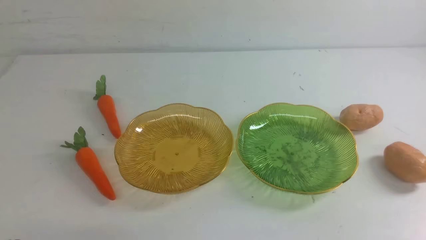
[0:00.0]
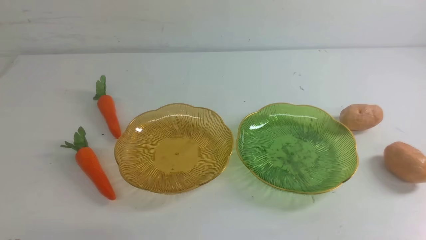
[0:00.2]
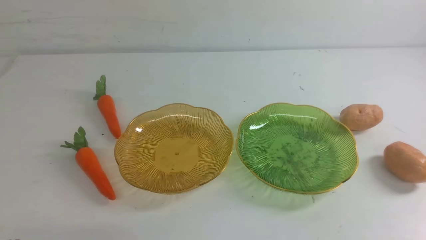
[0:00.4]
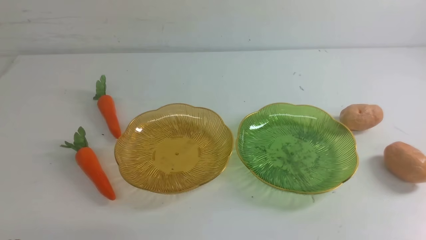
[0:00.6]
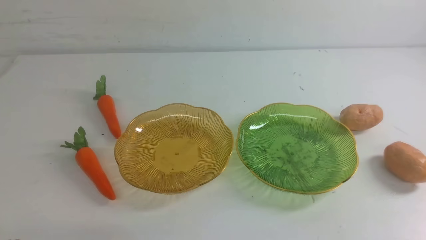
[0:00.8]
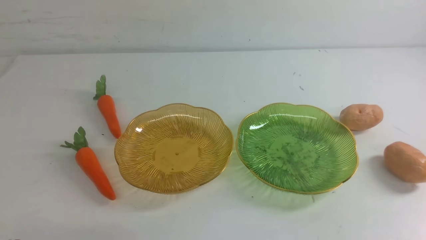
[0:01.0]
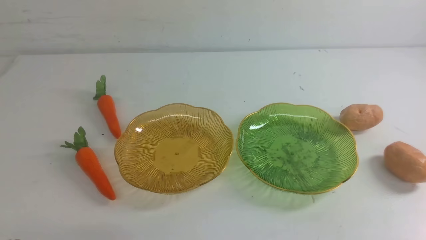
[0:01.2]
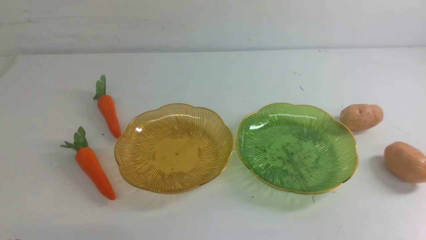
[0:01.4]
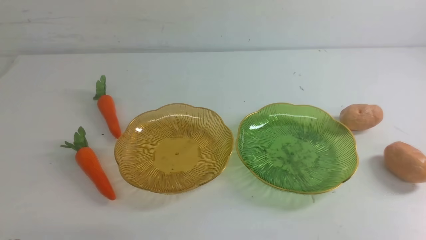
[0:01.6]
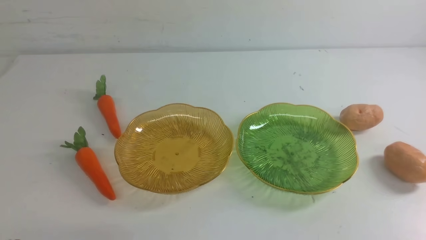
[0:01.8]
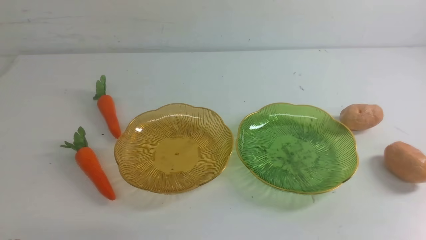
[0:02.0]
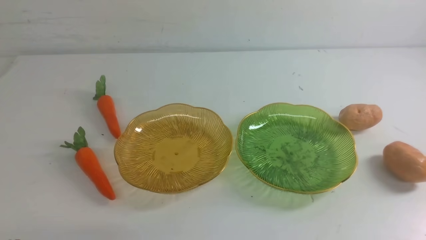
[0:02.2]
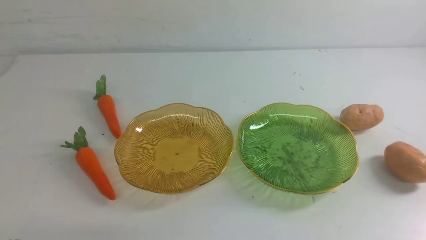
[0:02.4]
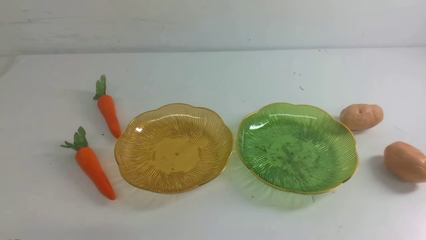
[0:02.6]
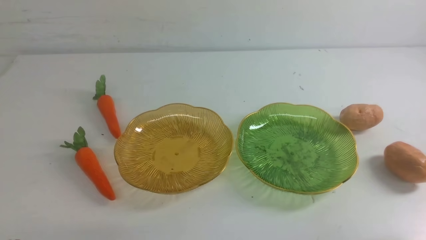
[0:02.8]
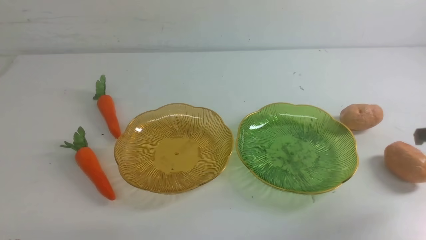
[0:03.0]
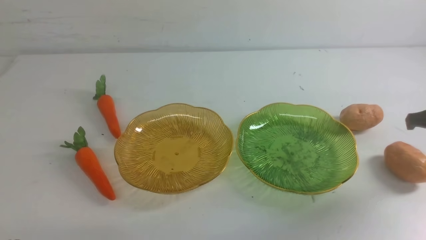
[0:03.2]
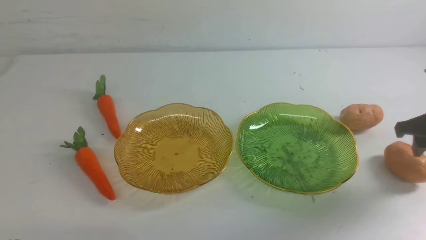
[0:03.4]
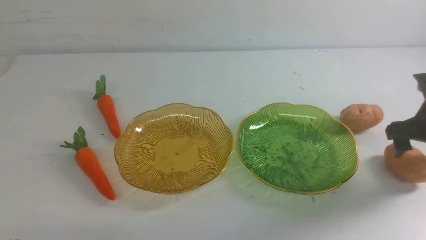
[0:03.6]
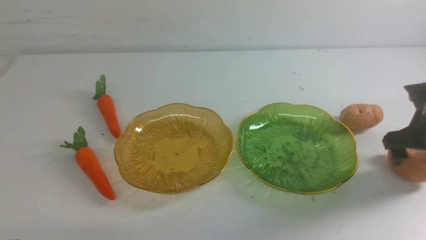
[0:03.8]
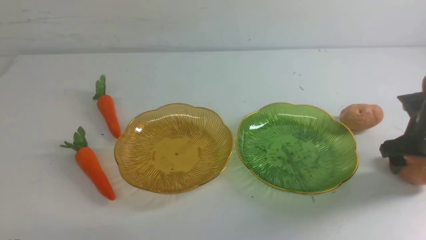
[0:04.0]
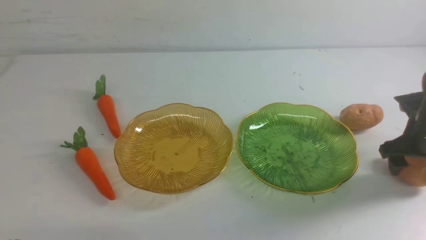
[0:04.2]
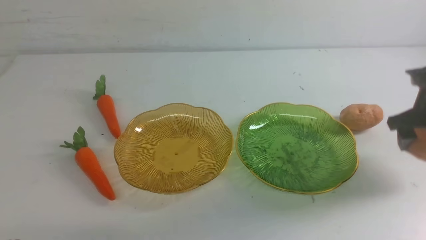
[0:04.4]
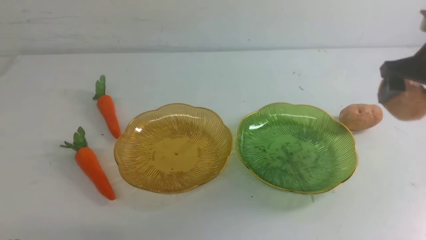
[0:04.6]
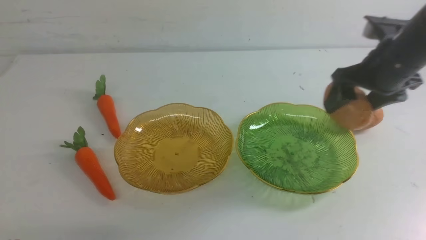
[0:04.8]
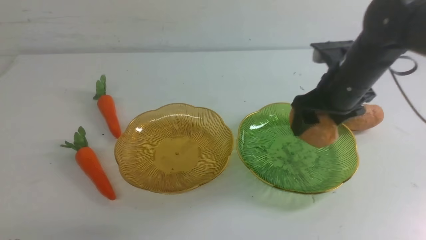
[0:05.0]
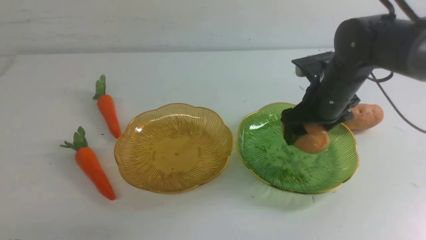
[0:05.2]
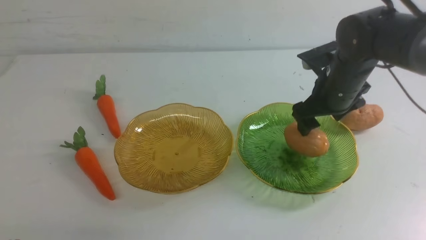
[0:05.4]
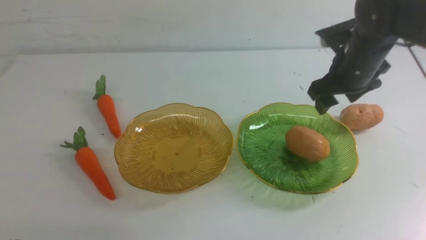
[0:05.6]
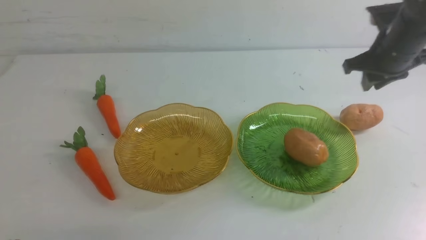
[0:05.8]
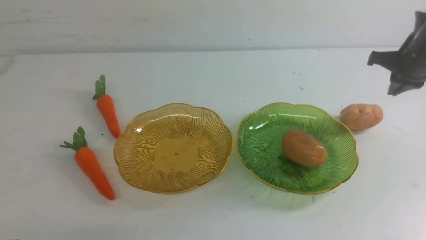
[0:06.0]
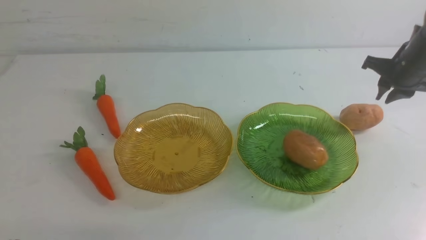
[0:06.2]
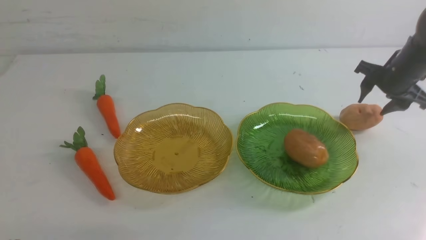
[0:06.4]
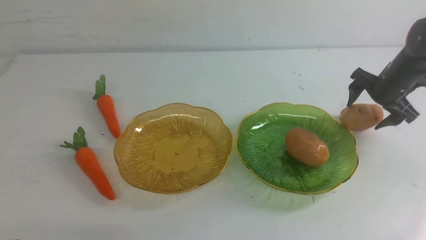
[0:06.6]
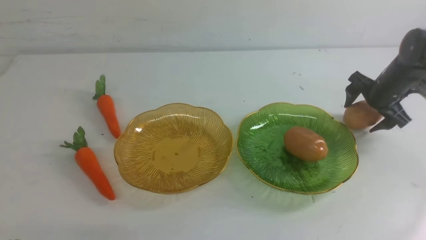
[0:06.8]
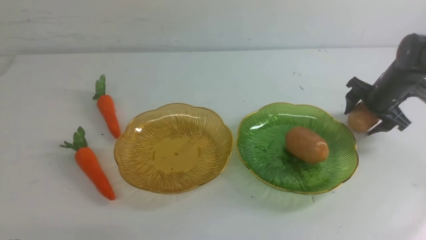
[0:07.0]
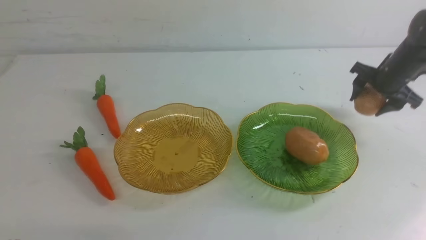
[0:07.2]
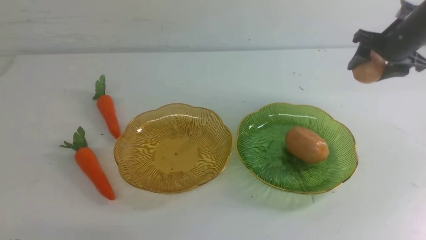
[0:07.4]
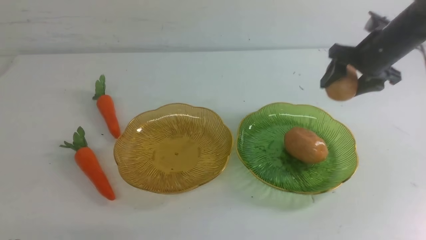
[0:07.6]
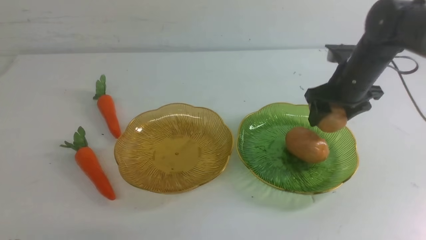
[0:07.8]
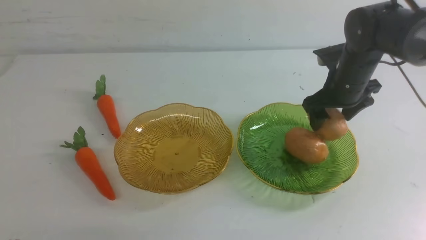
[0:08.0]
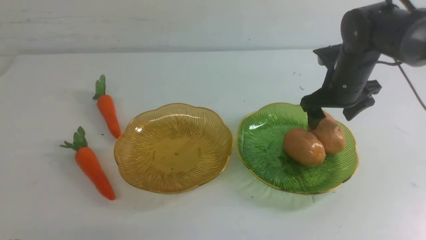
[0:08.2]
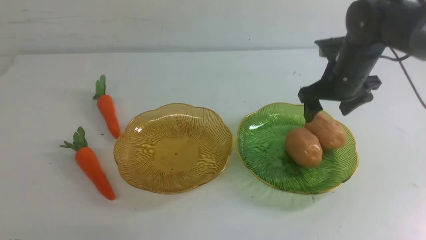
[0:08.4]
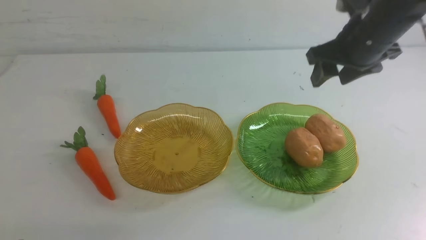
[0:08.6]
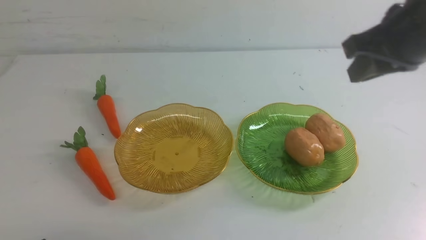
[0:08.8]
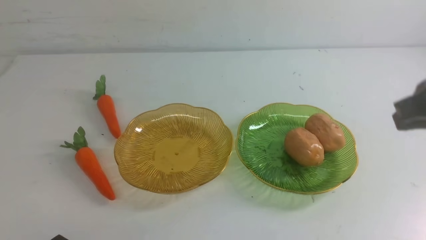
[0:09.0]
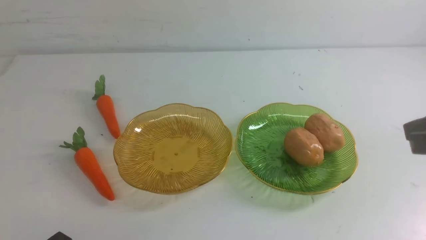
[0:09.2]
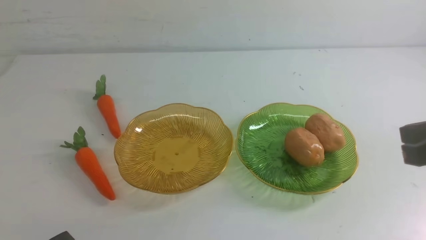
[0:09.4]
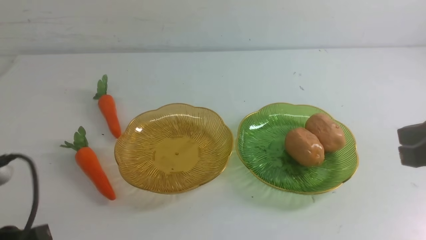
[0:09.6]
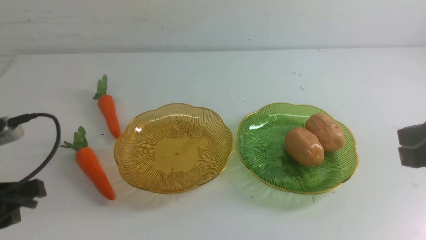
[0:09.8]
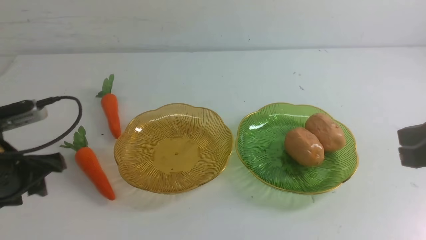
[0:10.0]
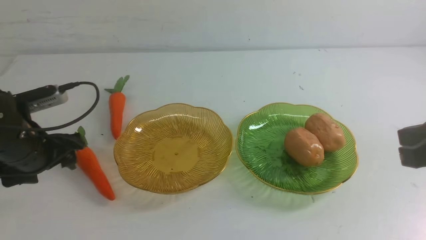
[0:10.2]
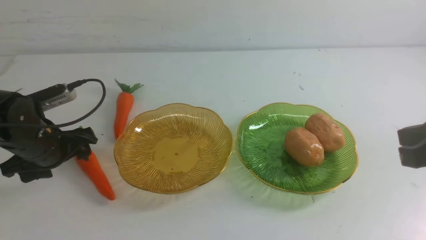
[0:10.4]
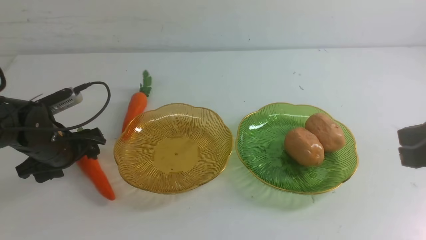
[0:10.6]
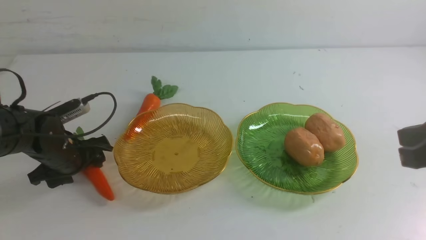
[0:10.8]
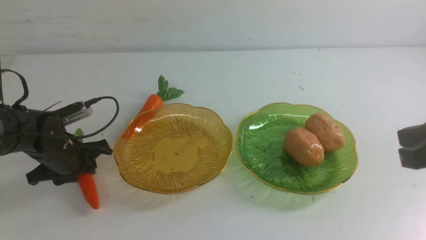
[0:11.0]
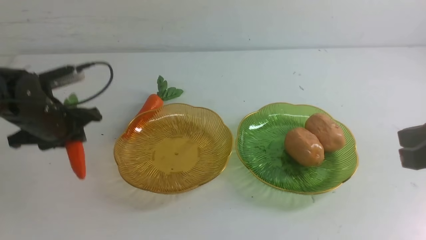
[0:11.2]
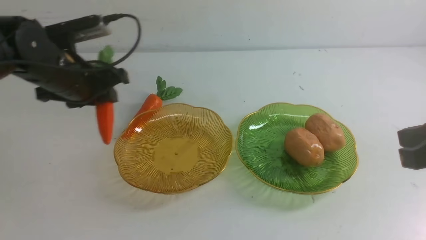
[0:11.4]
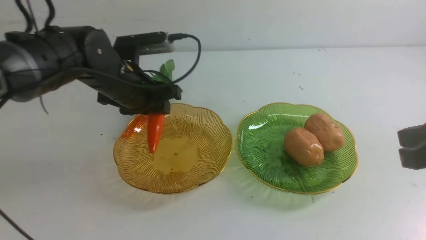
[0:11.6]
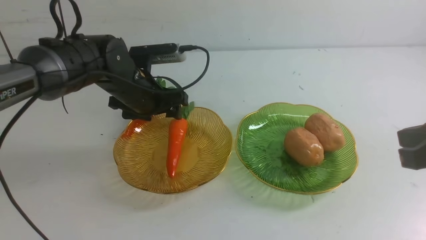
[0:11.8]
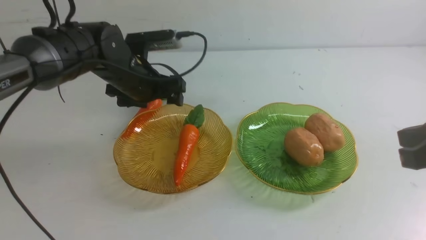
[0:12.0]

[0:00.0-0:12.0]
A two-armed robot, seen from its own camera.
Step, 0:00.0 to 0:05.4: Grab a potato with your right arm and put it on the right plate.
Step, 0:05.8 to 0:08.4: Grab a potato with your right arm and put it on the right plate.
0:01.6 to 0:03.0: The right gripper goes about 25 cm forward, and opens its fingers.
0:03.0 to 0:04.4: The right gripper is displaced to the left and upward by some 10 cm, and opens up.
0:04.4 to 0:06.0: The right gripper shifts some 5 cm forward, travels to the left and back again, roughly 10 cm each way, and closes up.
0:06.0 to 0:07.6: The right gripper heads to the left, covering some 5 cm, travels downward and back again, about 10 cm each way, and opens.
0:07.6 to 0:09.0: The right gripper goes about 25 cm backward and upward, and closes its fingers.
0:09.0 to 0:10.4: The left gripper heads forward, covering some 25 cm, and opens up, while the right gripper moves downward, approximately 5 cm.
0:10.4 to 0:12.0: The left gripper heads to the right and forward, covering roughly 15 cm, and closes, then opens again.

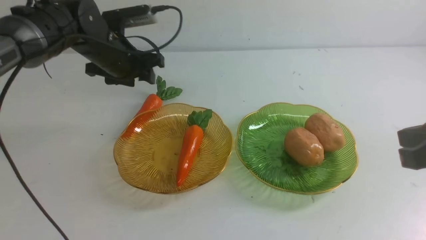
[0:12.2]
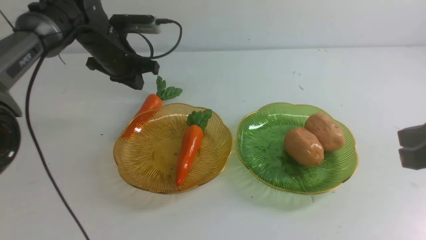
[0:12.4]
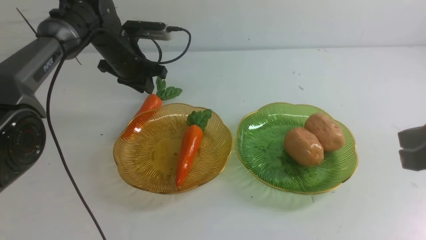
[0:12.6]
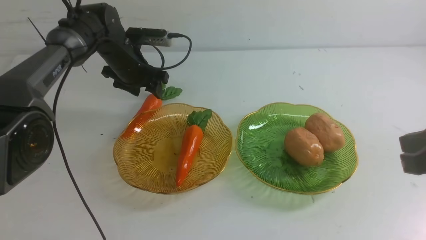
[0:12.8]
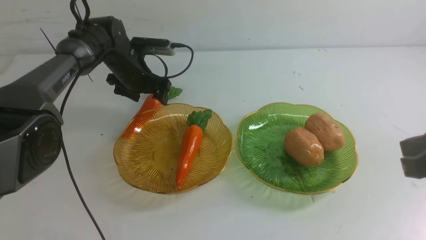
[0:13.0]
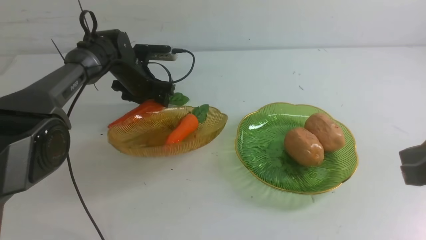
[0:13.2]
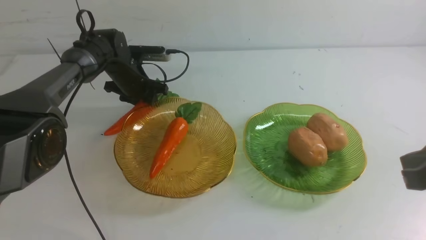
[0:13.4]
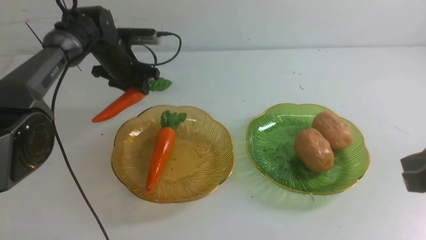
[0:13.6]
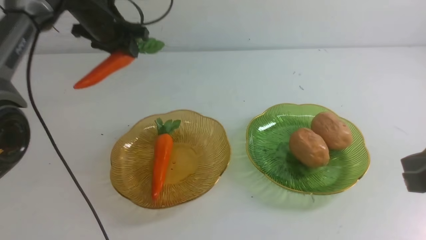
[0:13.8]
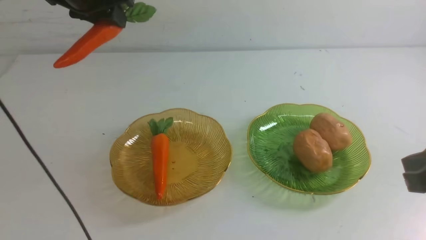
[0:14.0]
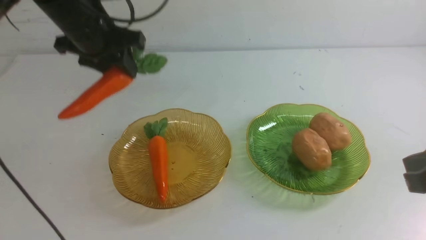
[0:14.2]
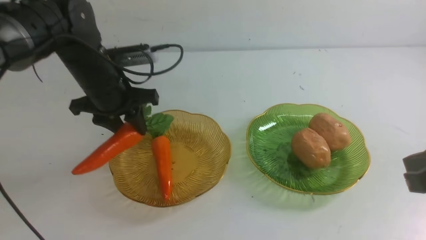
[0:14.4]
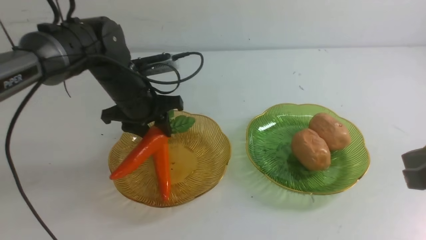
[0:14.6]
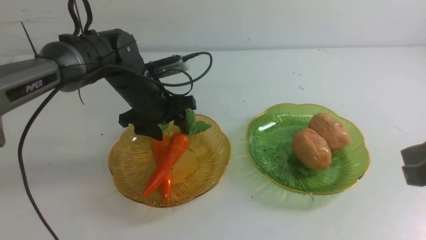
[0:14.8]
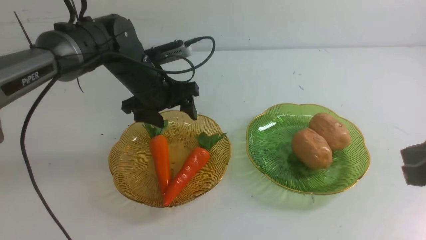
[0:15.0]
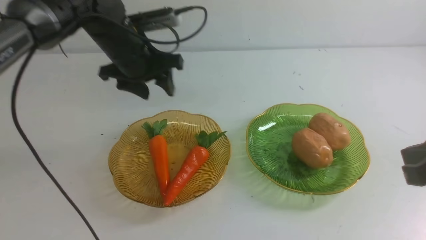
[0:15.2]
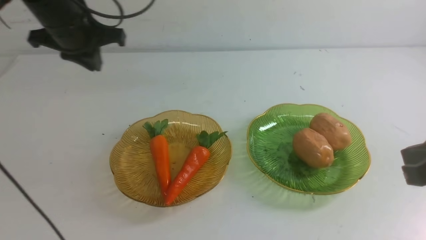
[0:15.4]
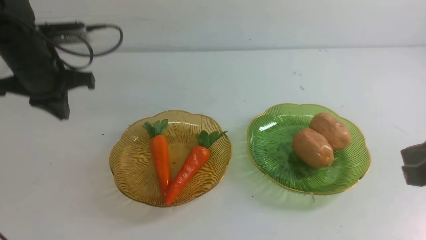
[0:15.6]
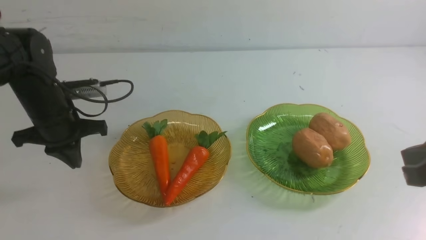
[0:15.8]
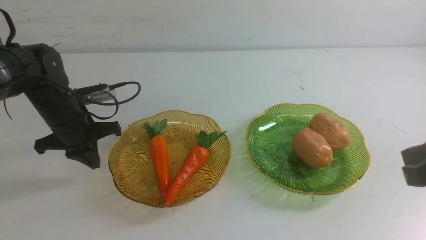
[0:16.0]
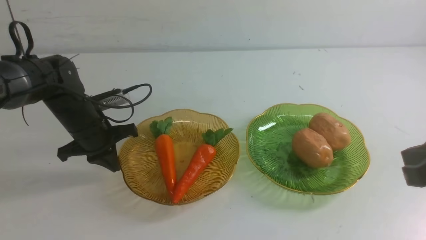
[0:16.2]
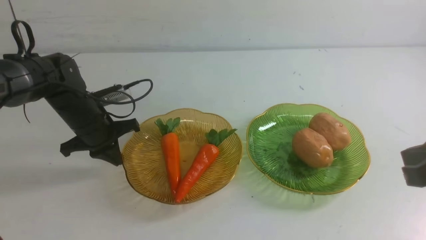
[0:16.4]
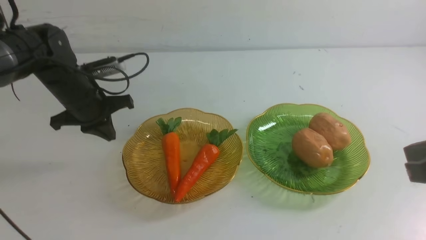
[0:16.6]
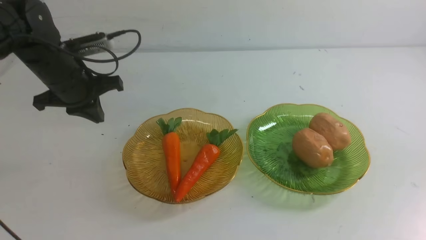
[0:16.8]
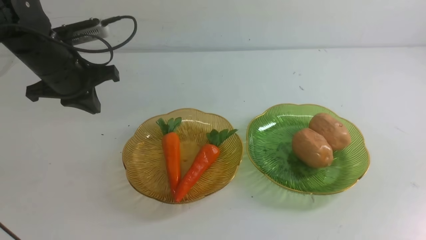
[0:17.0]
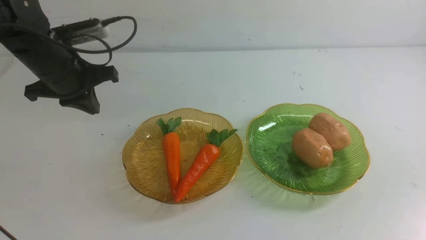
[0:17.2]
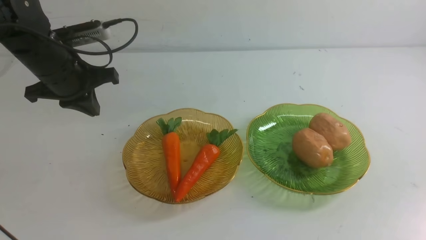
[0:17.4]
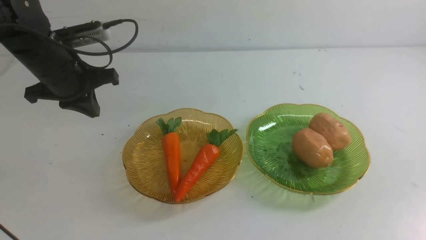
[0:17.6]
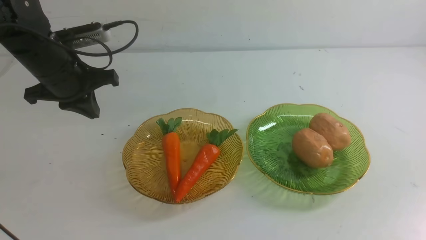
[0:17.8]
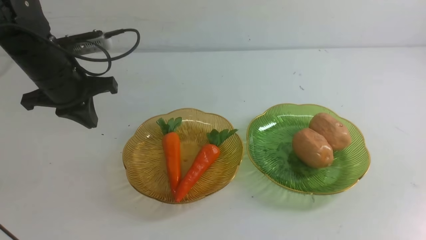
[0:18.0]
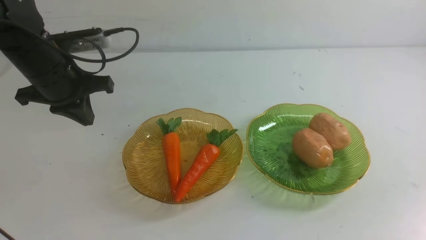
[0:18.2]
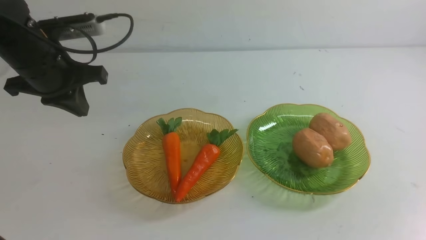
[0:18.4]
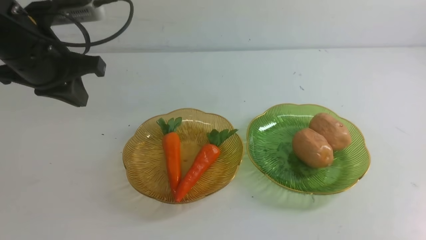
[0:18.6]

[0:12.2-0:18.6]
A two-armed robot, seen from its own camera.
Step, 0:12.2 to 0:15.0: use the left arm to grab a carrot and put it into the left plate.
0:12.2 to 0:13.8: The left gripper shifts approximately 10 cm upward.
0:13.8 to 0:15.4: The left gripper heads backward, downward and to the left, covering approximately 10 cm, and closes.
0:15.4 to 0:17.0: The right gripper travels backward by approximately 10 cm, while the left gripper travels downward and back again, roughly 10 cm each way.
0:17.0 to 0:18.6: The left gripper is displaced upward and backward by about 10 cm.
